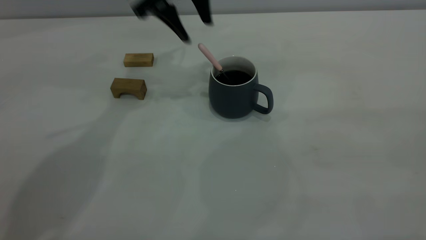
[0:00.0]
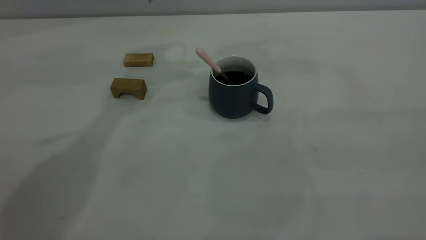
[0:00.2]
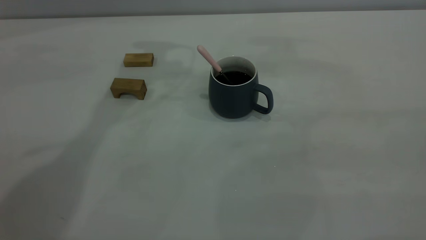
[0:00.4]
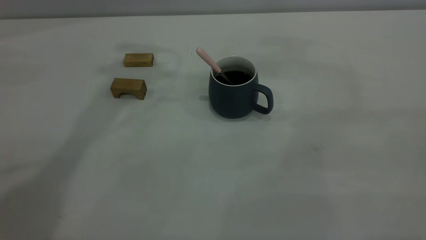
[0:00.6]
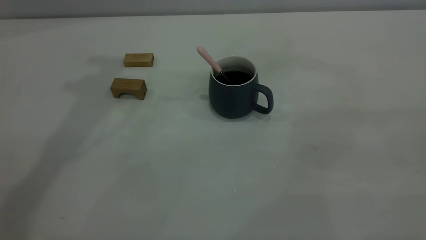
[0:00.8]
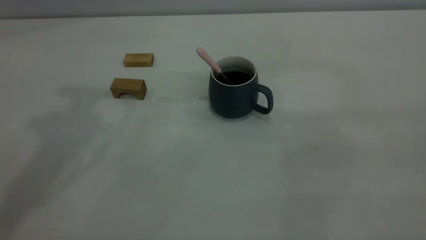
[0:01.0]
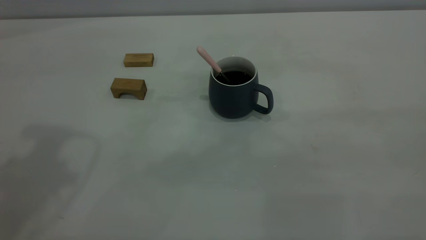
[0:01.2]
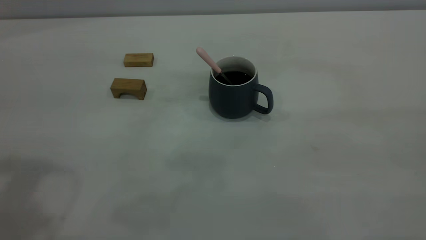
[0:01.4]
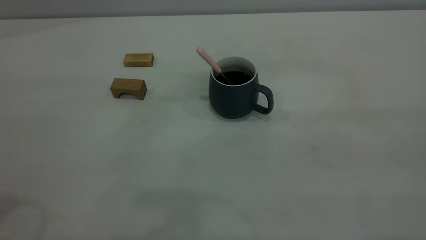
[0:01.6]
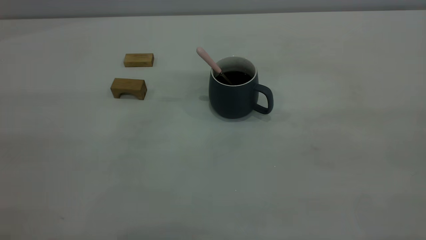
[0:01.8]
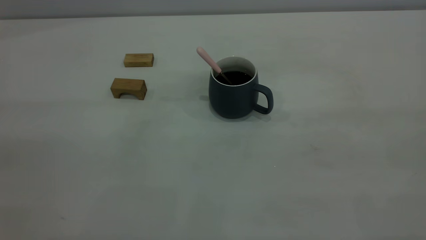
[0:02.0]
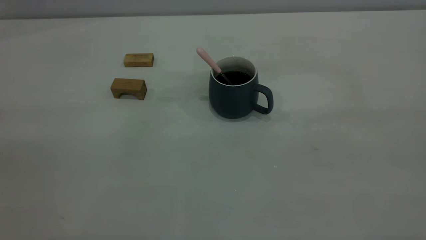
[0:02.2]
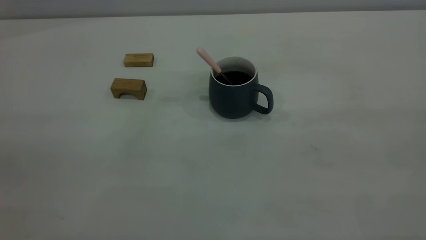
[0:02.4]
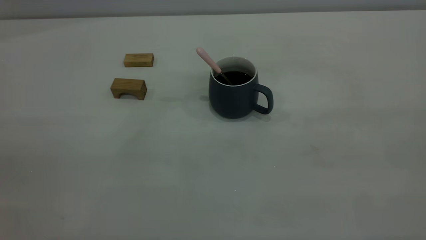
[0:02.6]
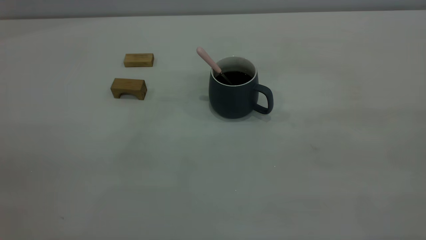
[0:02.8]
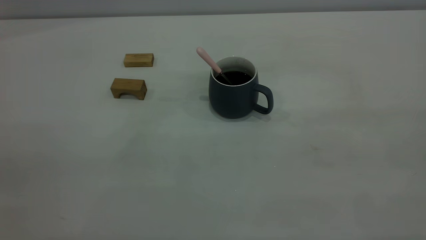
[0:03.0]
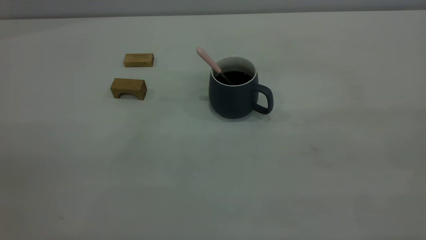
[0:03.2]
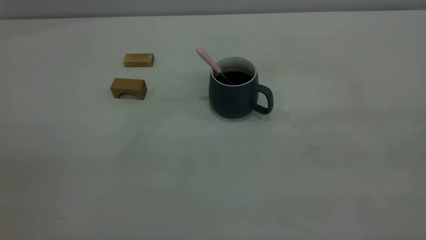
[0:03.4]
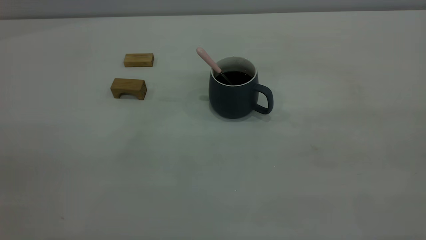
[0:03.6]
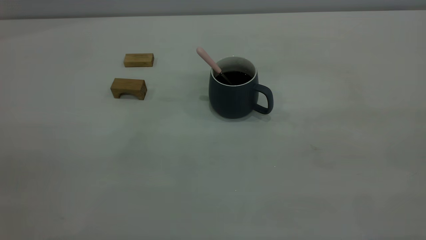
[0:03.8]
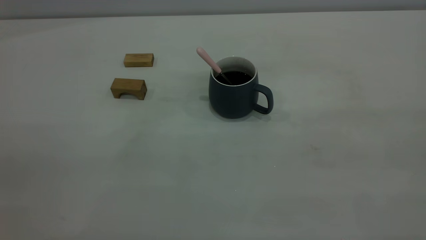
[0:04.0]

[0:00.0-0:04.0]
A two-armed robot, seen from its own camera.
0:00.0 to 0:01.4: The left gripper moves backward and to the left, roughly 35 cm.
0:02.6 to 0:04.0: The two grippers keep their place.
